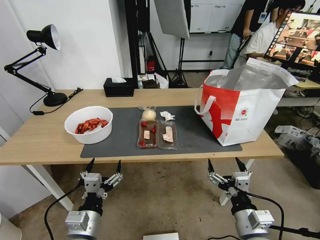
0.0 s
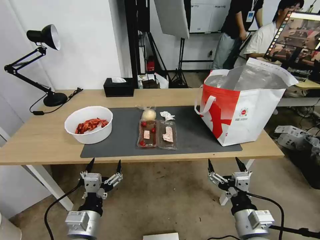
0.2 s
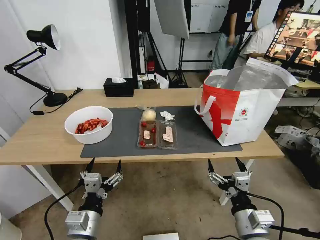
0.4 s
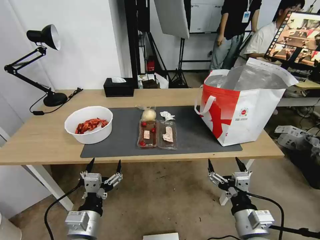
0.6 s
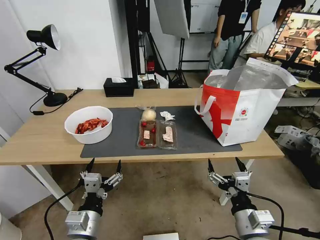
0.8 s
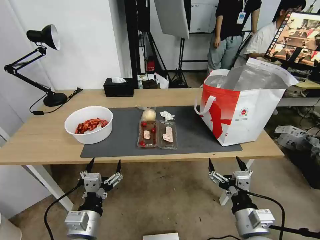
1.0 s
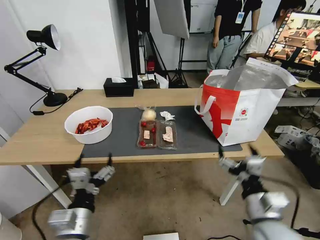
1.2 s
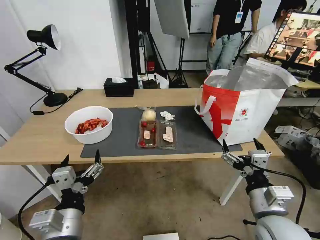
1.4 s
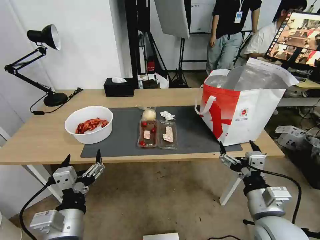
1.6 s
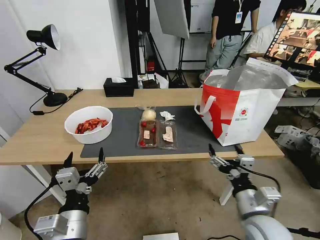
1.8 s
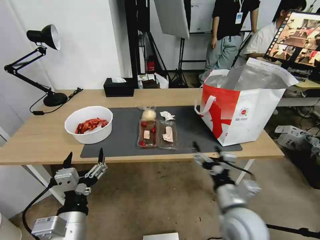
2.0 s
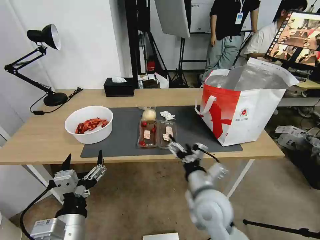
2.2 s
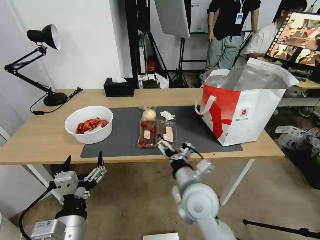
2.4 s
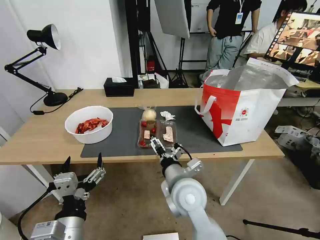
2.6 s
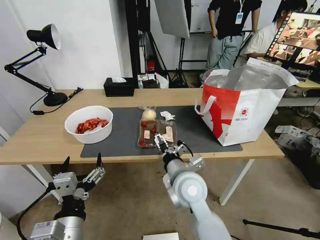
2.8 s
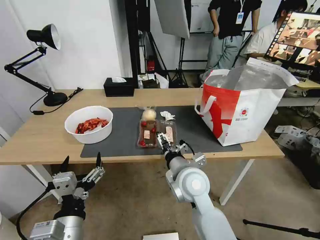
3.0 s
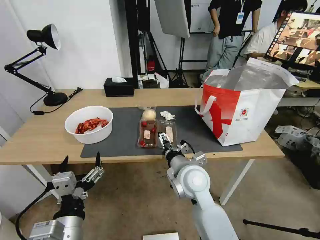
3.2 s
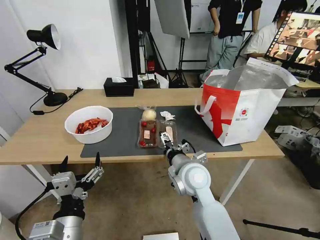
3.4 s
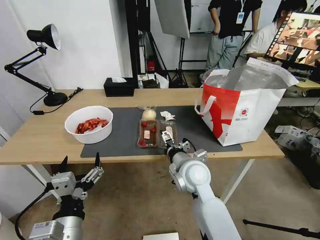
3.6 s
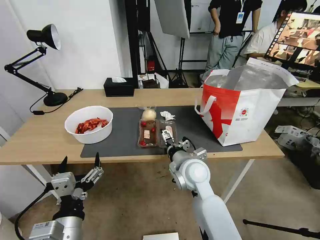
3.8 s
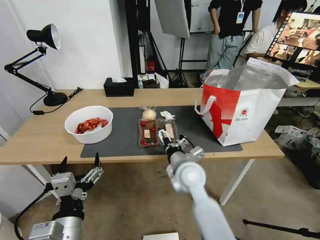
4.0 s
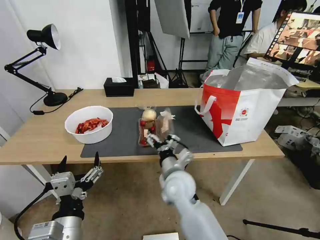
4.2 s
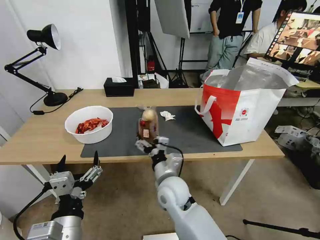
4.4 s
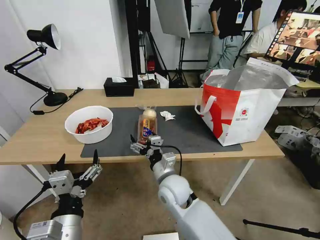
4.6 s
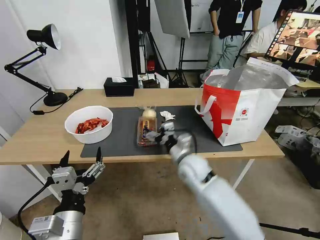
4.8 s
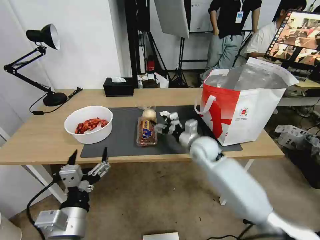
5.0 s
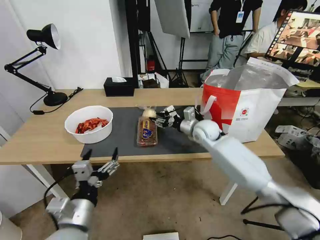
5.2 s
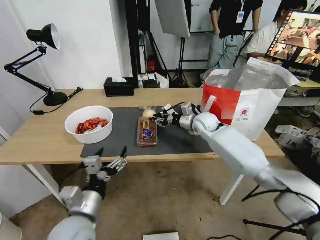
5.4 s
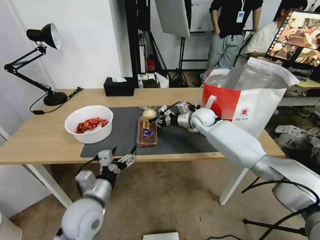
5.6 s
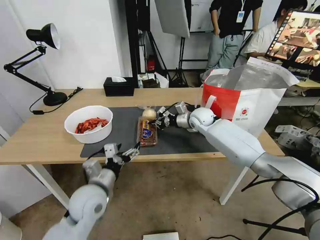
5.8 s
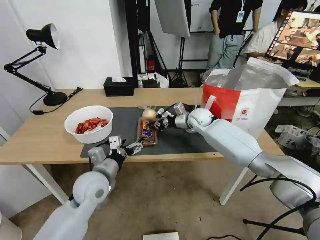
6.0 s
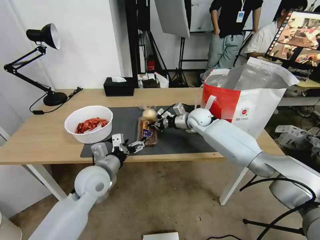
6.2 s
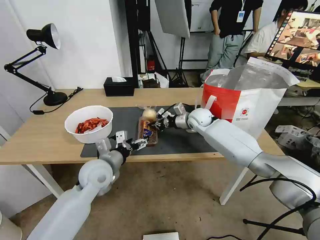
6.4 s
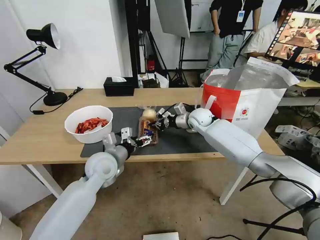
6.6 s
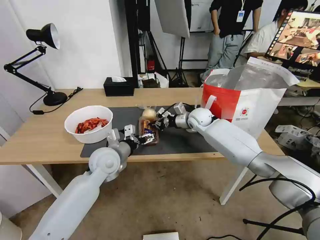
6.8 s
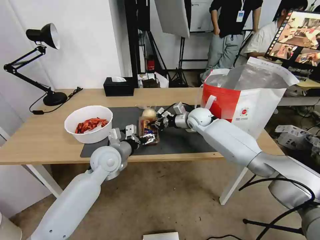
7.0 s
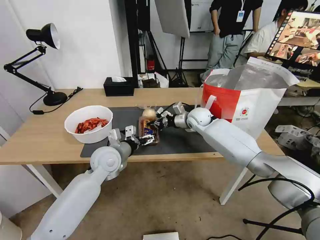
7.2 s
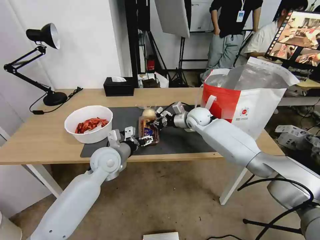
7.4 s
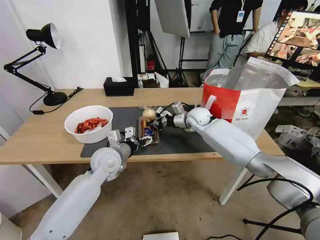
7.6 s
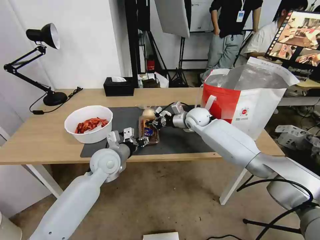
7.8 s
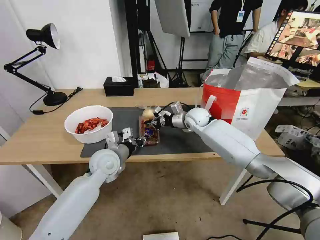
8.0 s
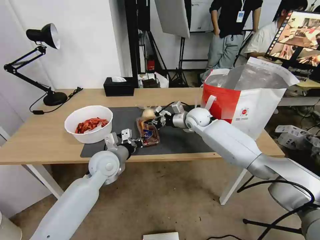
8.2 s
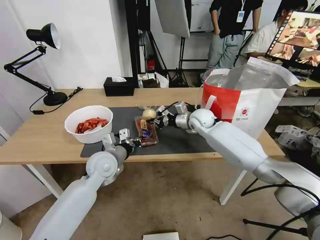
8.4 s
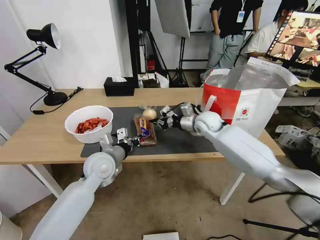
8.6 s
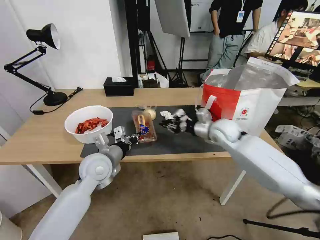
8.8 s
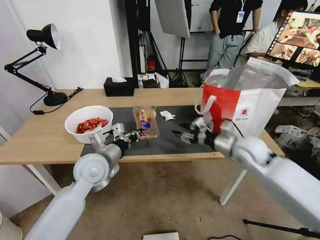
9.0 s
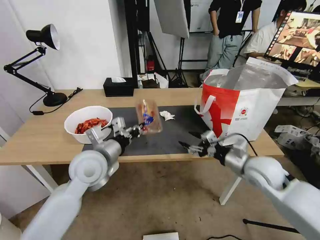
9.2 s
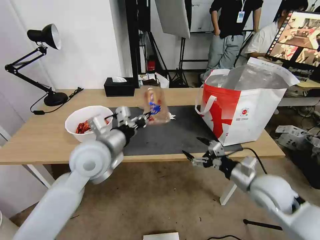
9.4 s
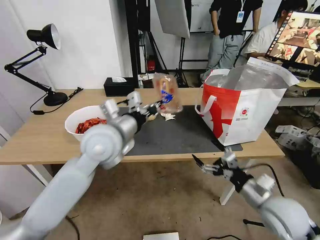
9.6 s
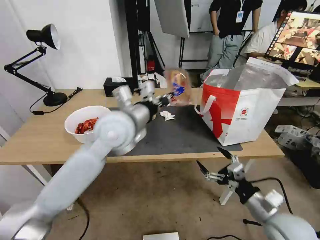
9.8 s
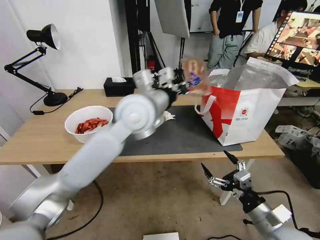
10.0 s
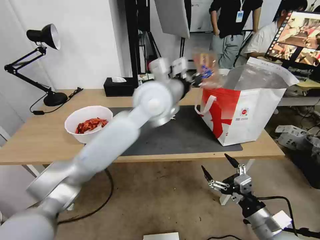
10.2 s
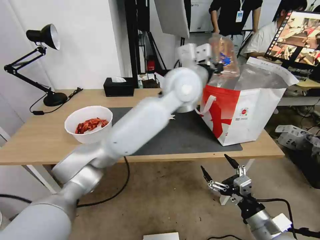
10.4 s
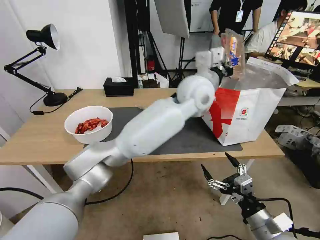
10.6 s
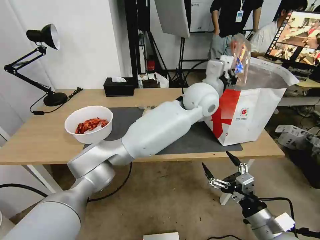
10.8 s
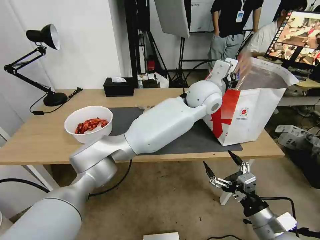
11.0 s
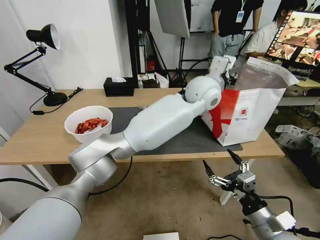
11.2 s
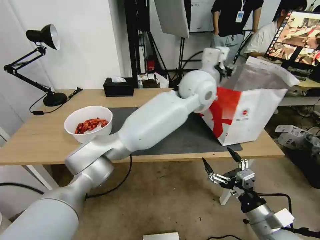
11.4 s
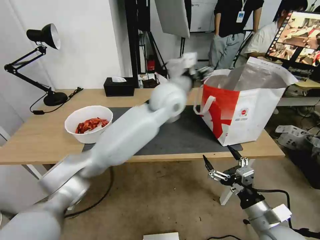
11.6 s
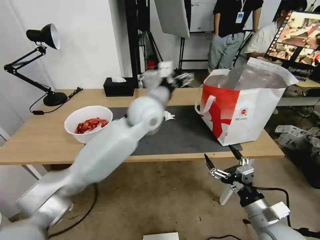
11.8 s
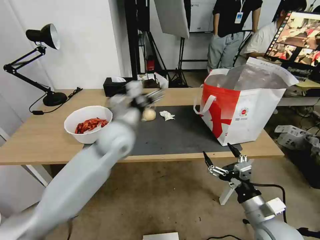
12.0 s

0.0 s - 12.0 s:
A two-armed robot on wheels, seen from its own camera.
Task of the whole recording: Pick up the trash from the table and place it into the takeout bag.
1.6 s - 3.0 s: The right gripper travels to the left and forward by about 20 cm.
3.0 s - 4.4 s: The right gripper travels downward by some 5 cm.
4.4 s - 6.0 s: The right gripper is displaced forward and to the right by about 30 cm, and closes; the left gripper moves forward, roughly 20 cm.
6.0 s - 7.6 s: The left gripper travels forward by some 10 cm.
7.6 s - 9.0 s: The left gripper moves approximately 5 cm, and closes its fingers. Meanwhile the right gripper shifts approximately 20 cm backward and to the right, and opens up.
9.0 s - 10.4 s: The right gripper shifts about 25 cm backward, and opens. Meanwhile the left gripper goes roughly 35 cm to the right, upward and forward.
10.4 s - 12.0 s: The left gripper is displaced to the left and downward by some 20 cm, and opens.

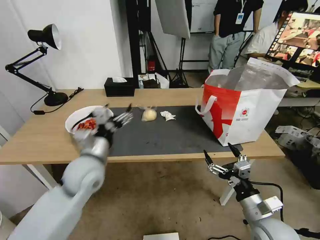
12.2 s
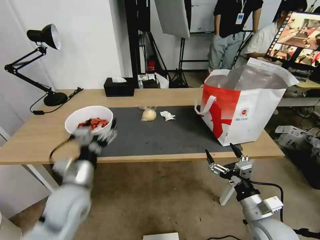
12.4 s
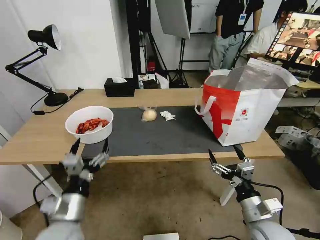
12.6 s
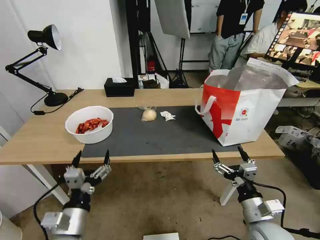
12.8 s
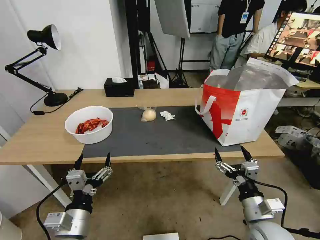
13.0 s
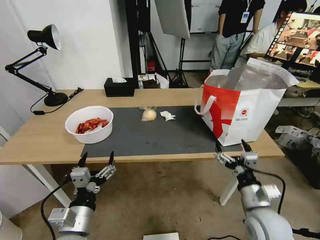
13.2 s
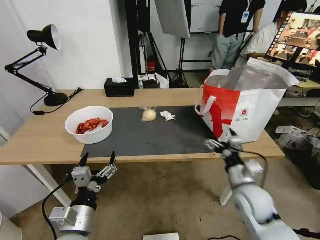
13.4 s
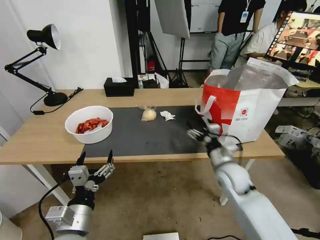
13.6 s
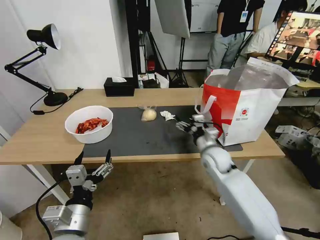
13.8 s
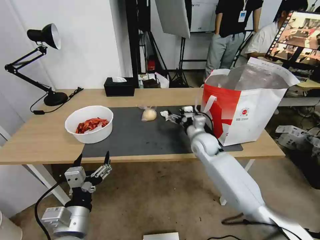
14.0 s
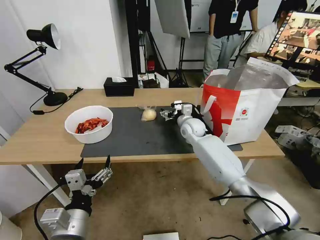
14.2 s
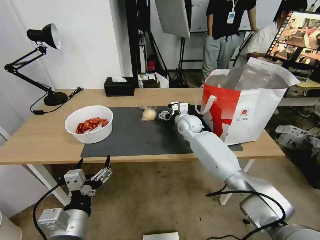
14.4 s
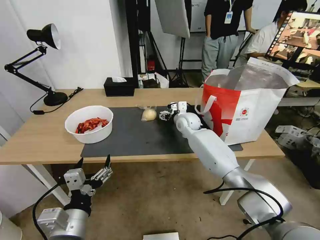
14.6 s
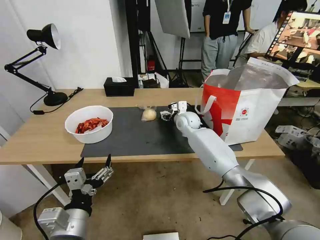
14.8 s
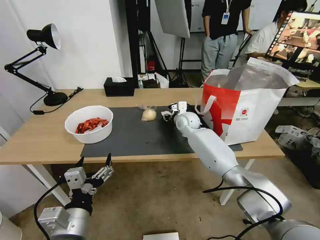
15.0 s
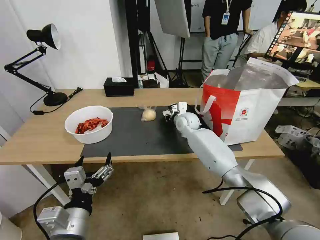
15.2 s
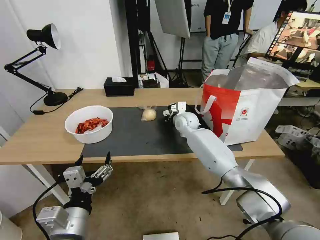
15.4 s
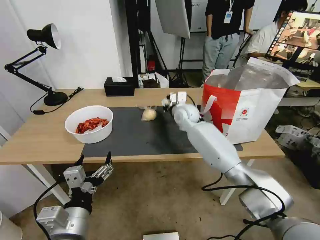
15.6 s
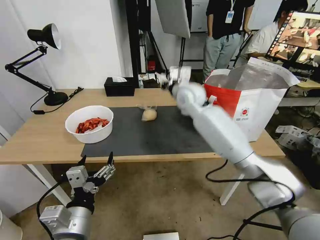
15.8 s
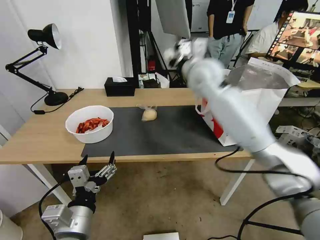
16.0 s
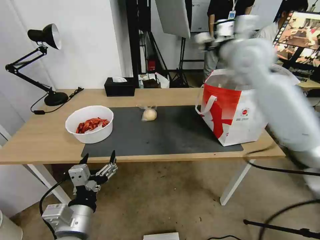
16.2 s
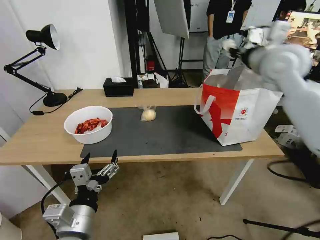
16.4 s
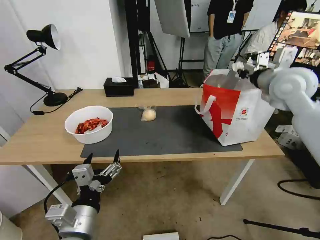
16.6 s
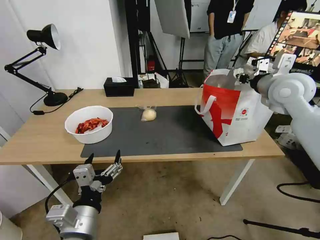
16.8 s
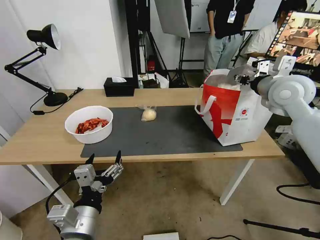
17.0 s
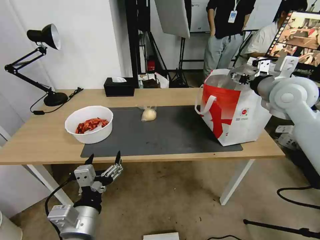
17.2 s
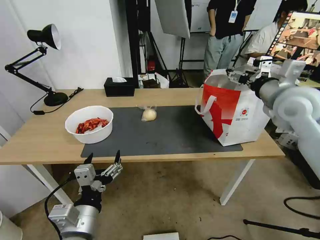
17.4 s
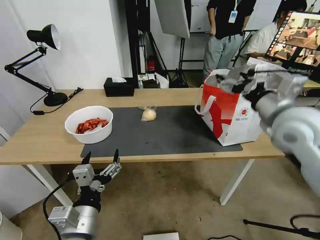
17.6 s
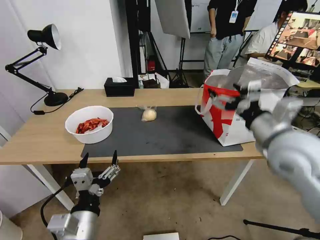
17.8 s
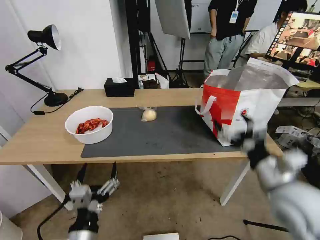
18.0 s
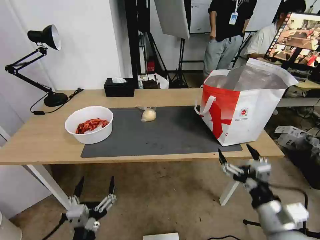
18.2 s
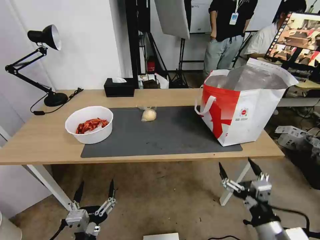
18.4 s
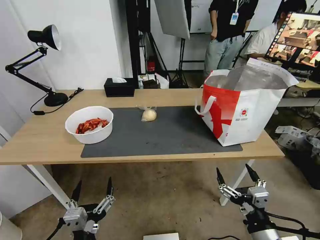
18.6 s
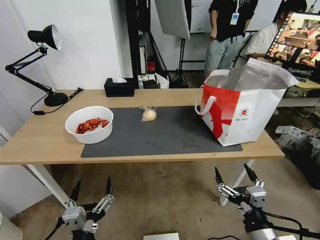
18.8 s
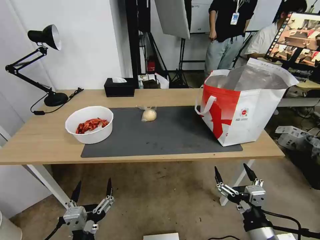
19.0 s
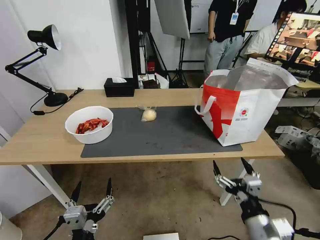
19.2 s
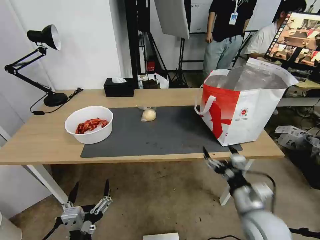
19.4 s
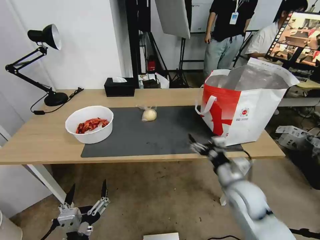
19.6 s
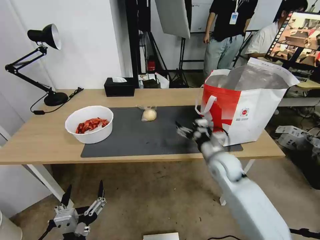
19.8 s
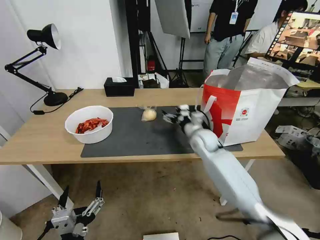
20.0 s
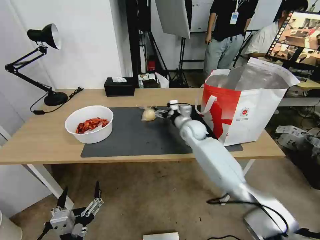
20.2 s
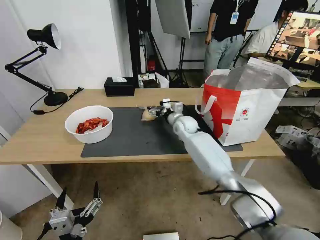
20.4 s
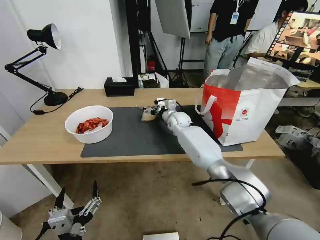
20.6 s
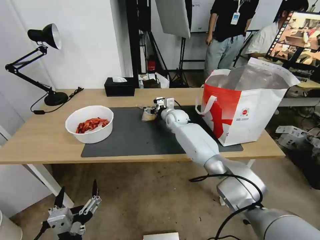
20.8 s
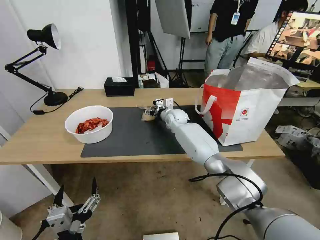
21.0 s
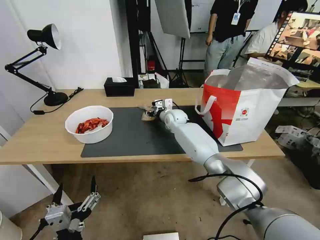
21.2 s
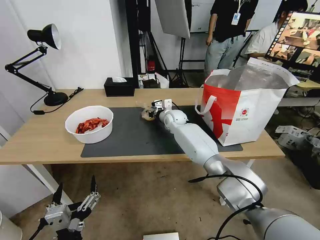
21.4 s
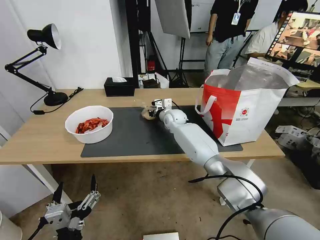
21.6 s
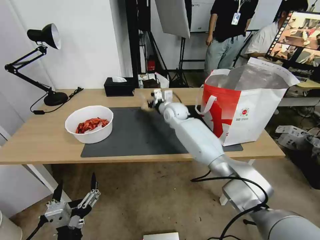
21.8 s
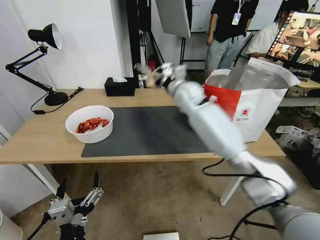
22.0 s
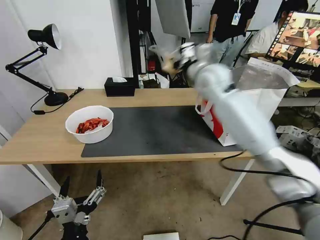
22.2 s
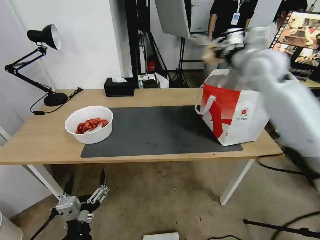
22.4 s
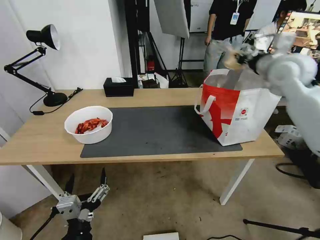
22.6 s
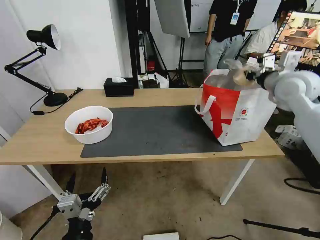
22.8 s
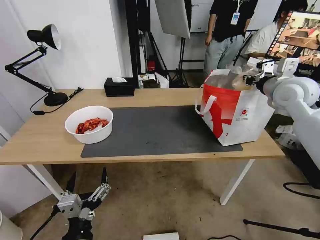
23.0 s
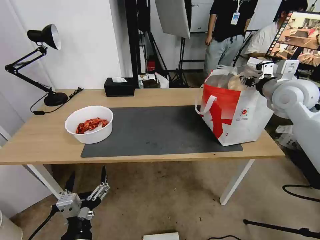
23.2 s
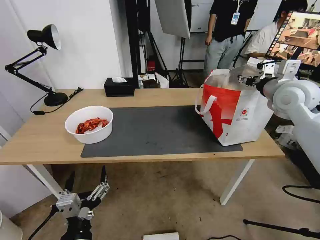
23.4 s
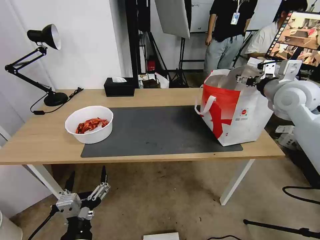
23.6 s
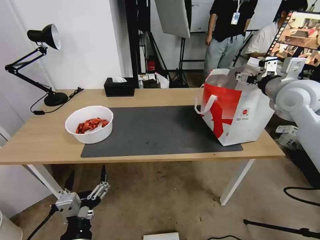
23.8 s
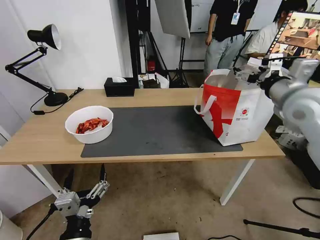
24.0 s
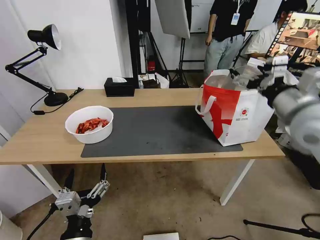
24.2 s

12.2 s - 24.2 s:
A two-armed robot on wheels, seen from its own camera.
Task of the whole recording: Pick up the trash from the table and place it into the takeout bag.
12.2 s - 13.8 s: The left gripper travels backward by some 15 cm. The right gripper travels forward by approximately 25 cm.
13.8 s - 15.2 s: The right gripper moves forward and to the left, some 20 cm, and closes.
15.2 s - 16.6 s: The right gripper moves upward, to the right and backward, about 35 cm.
16.6 s - 18.2 s: The right gripper travels backward and downward by approximately 40 cm, and opens up. Meanwhile the left gripper goes roughly 10 cm downward and backward.
18.2 s - 19.8 s: The right gripper goes some 20 cm forward.
19.8 s - 21.2 s: The right gripper heads forward and to the left, covering roughly 30 cm, and closes.
21.2 s - 22.6 s: The right gripper travels to the right, upward and backward by roughly 40 cm, and closes its fingers.
22.6 s - 24.2 s: The right gripper moves backward, about 15 cm, and opens.
